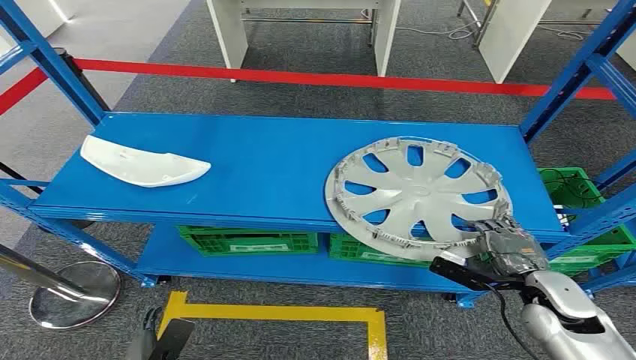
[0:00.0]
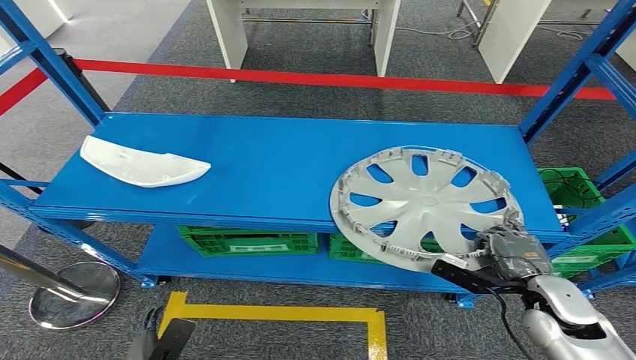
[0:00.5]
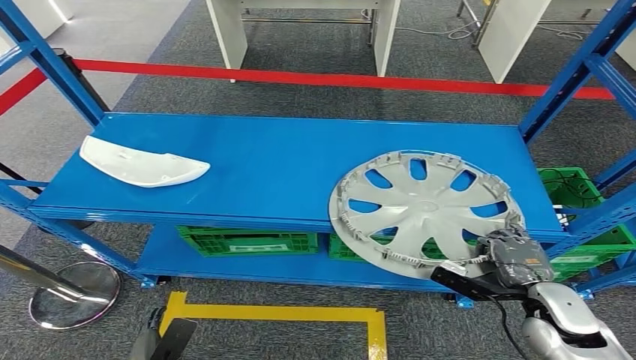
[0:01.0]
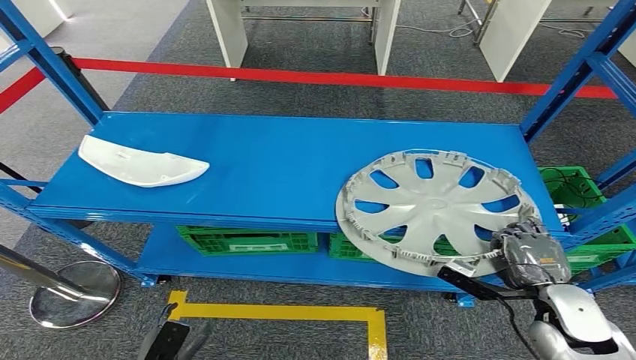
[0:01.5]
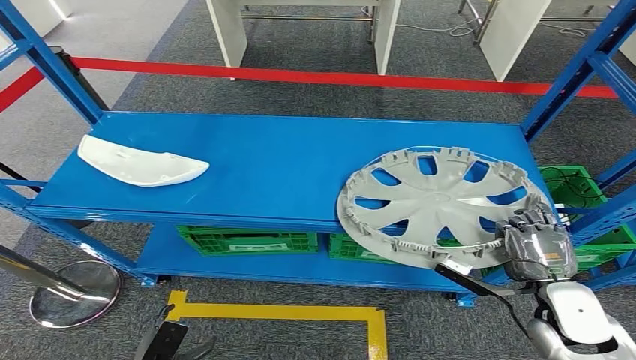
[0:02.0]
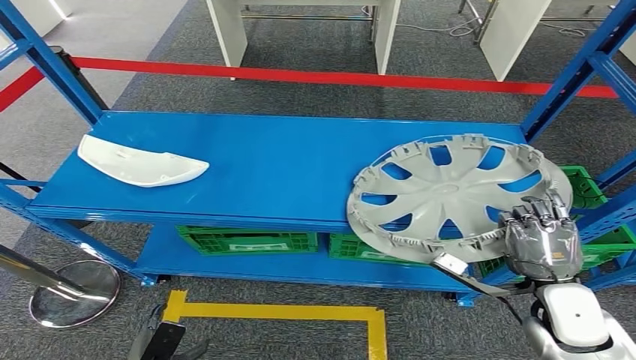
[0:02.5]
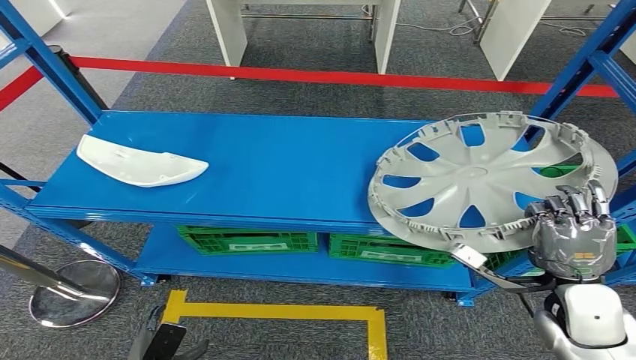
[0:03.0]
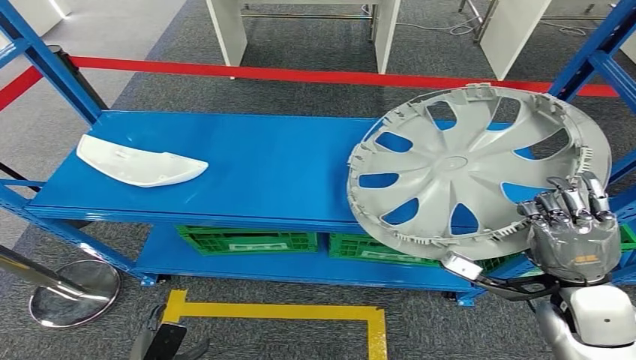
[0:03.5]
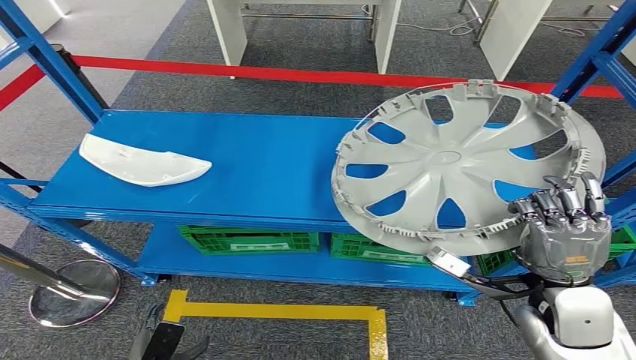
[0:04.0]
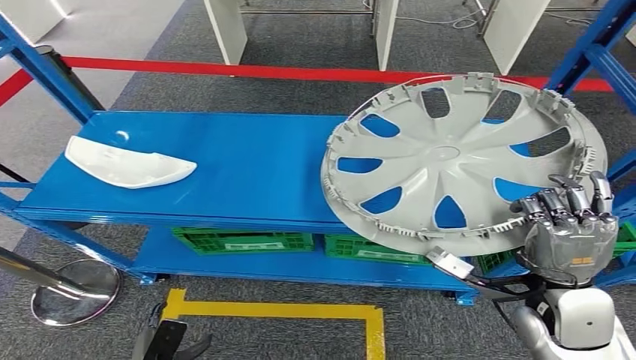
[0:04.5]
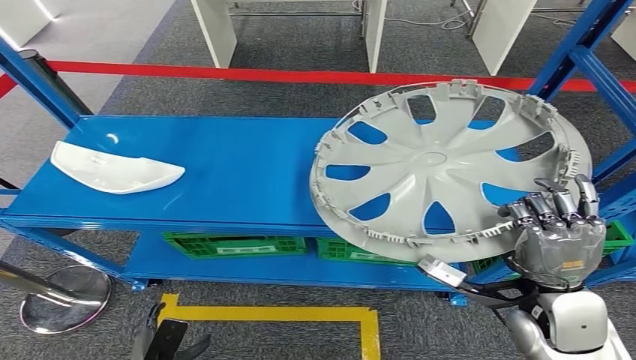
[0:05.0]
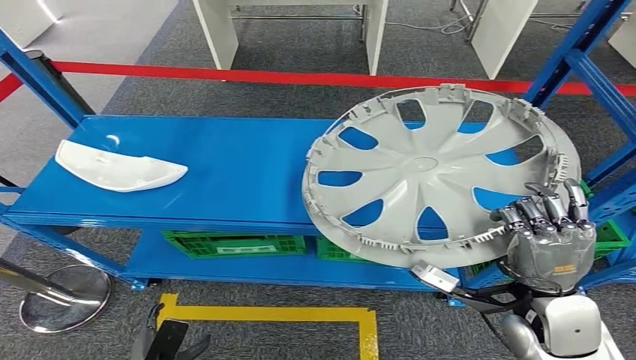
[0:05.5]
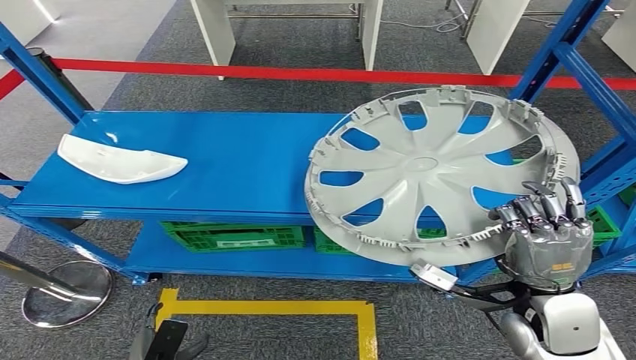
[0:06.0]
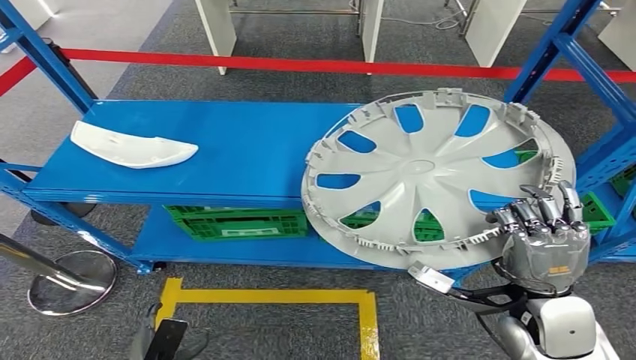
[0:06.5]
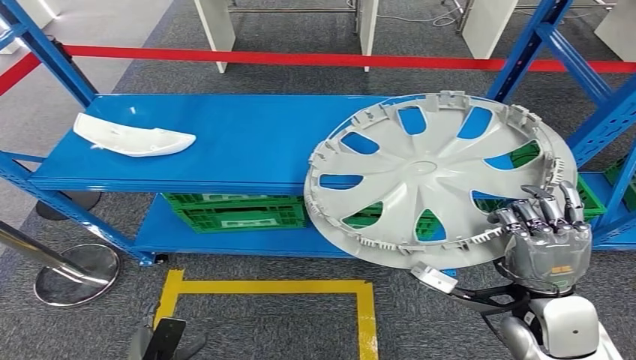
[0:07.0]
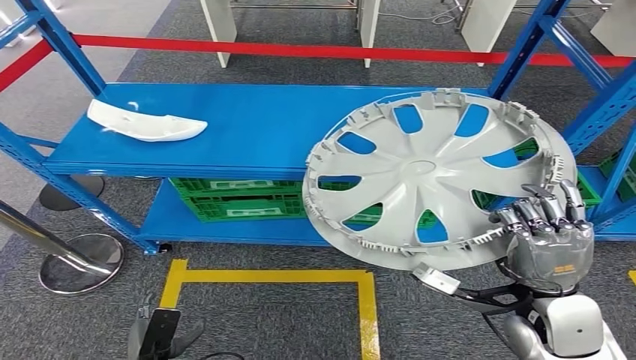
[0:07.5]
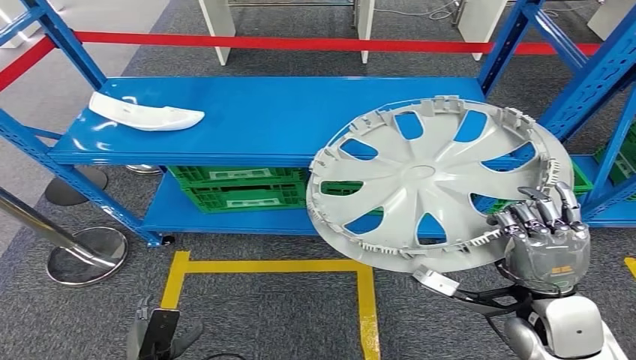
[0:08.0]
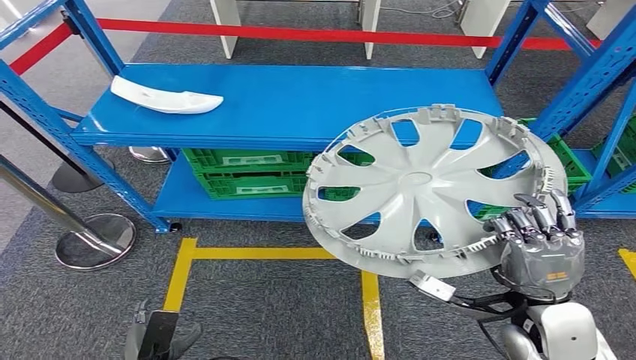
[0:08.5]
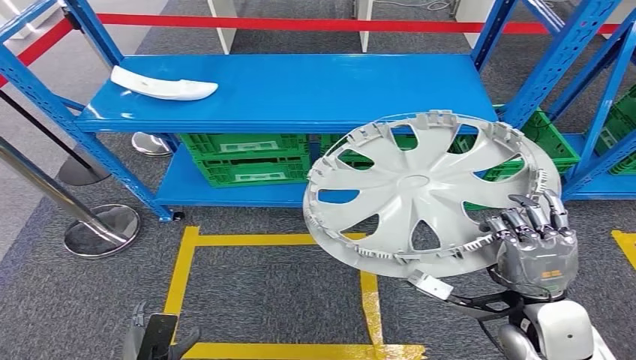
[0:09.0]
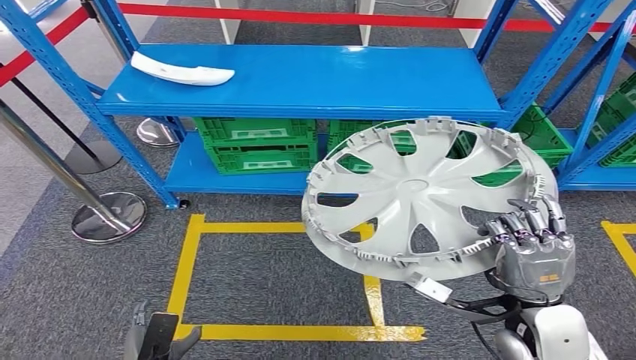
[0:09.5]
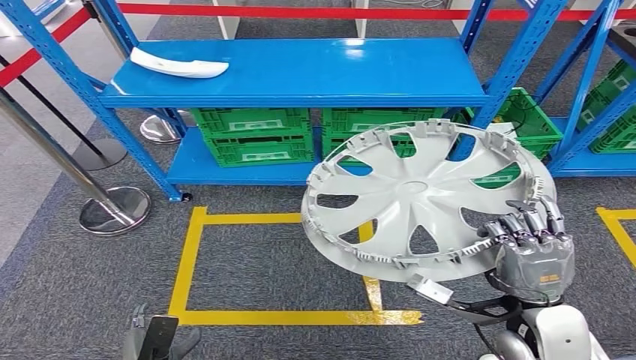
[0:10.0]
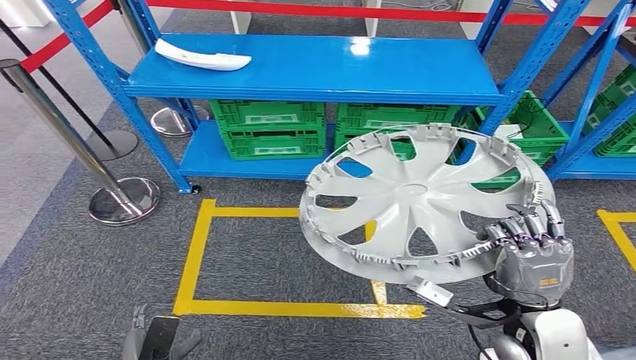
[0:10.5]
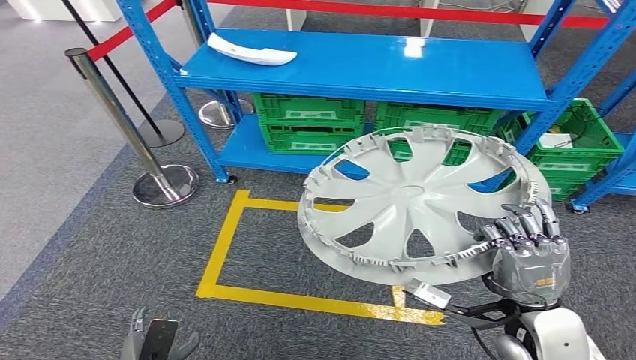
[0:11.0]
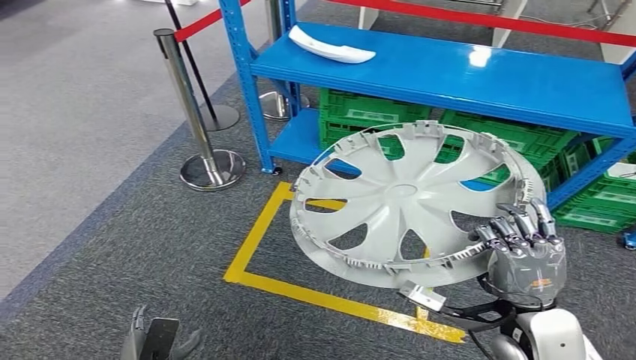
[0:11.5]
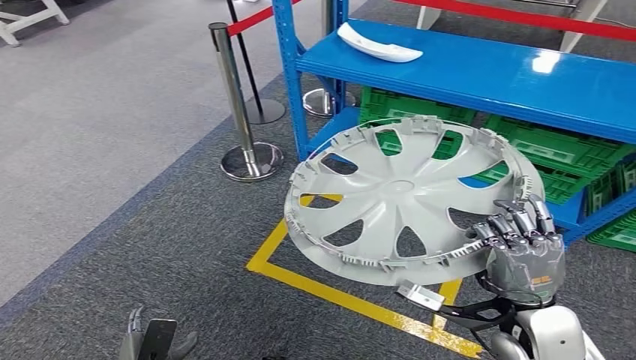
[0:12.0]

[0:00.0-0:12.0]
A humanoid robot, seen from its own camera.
Step, 0:00.0 to 0:04.0: Pick up the small component from the shelf.

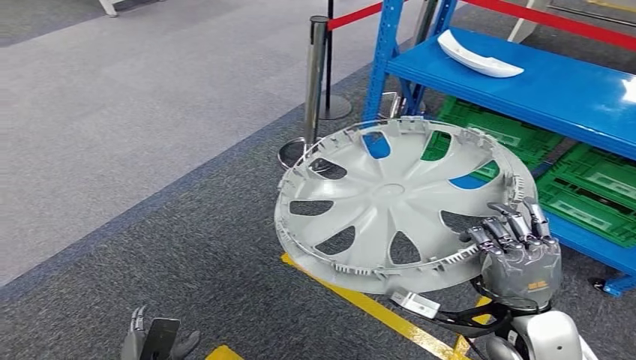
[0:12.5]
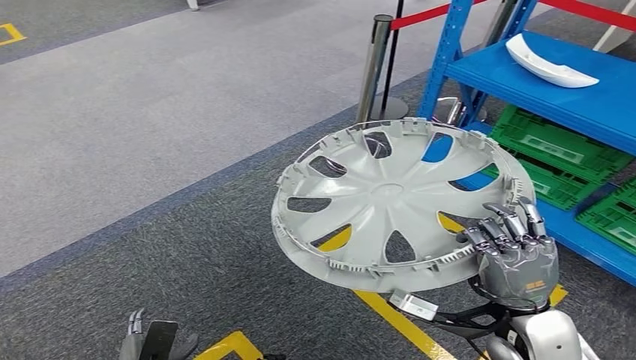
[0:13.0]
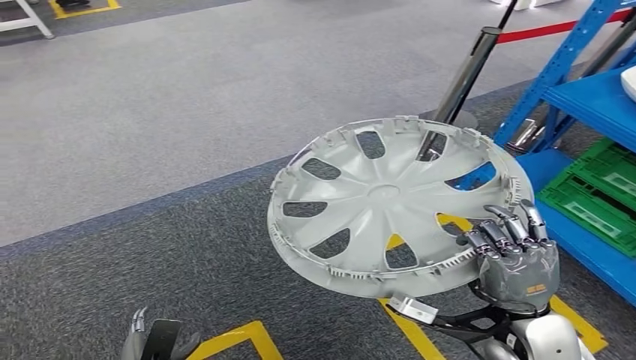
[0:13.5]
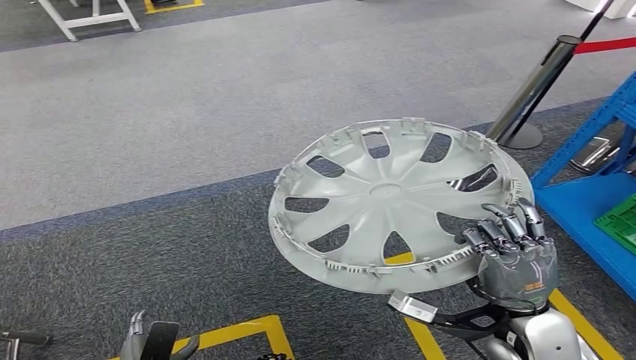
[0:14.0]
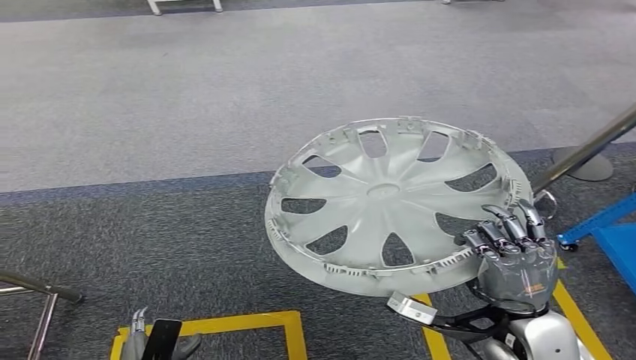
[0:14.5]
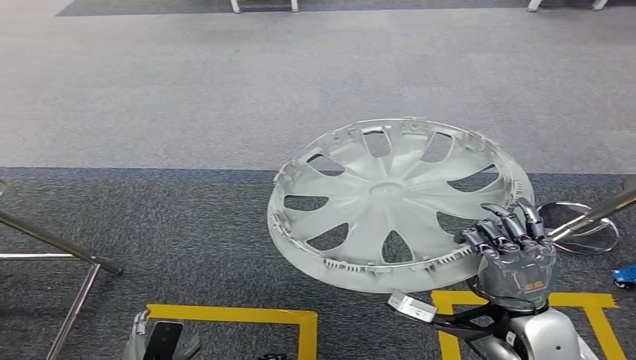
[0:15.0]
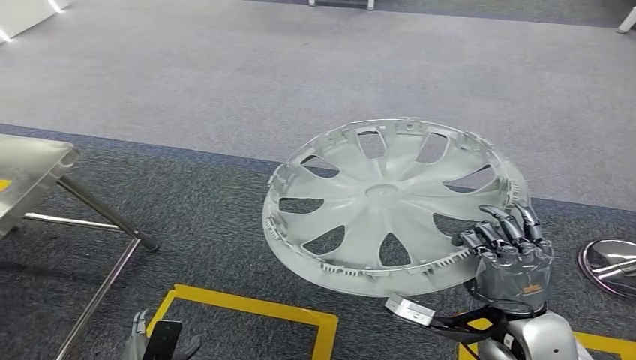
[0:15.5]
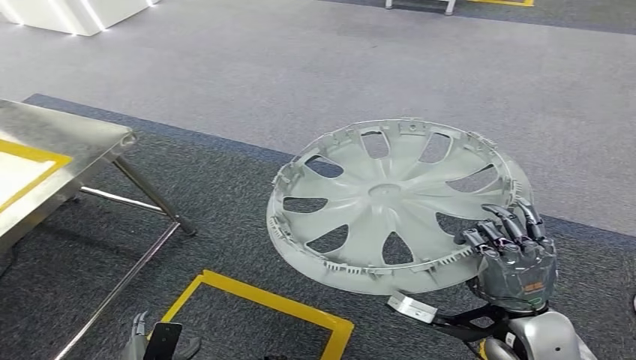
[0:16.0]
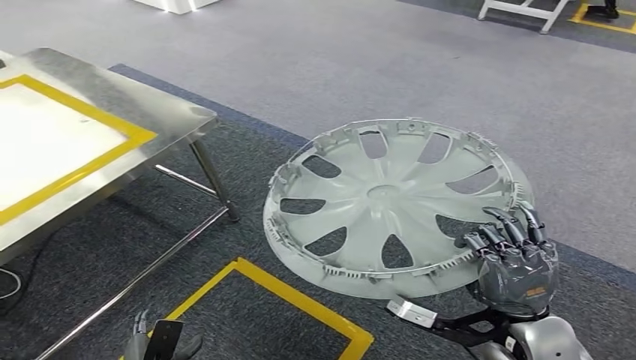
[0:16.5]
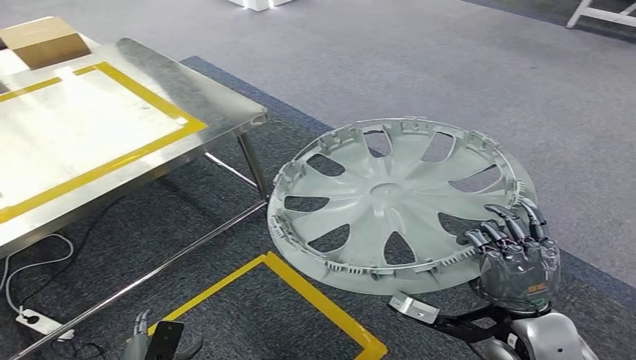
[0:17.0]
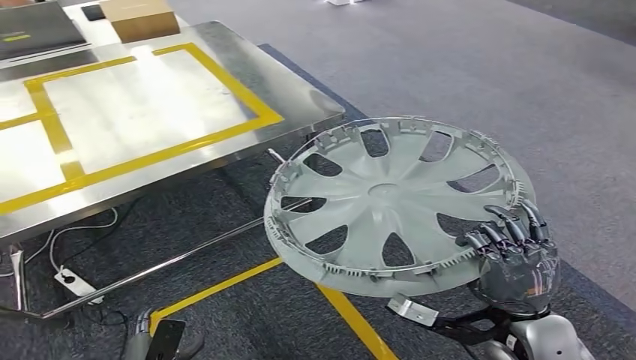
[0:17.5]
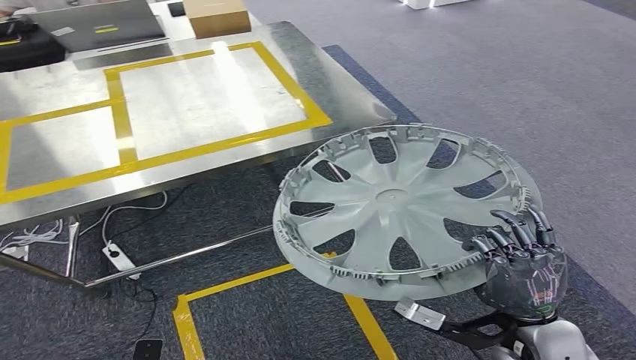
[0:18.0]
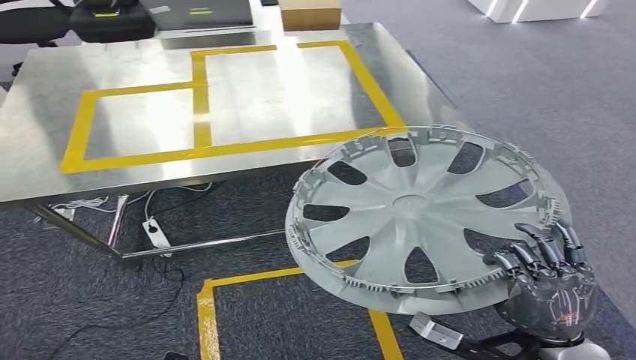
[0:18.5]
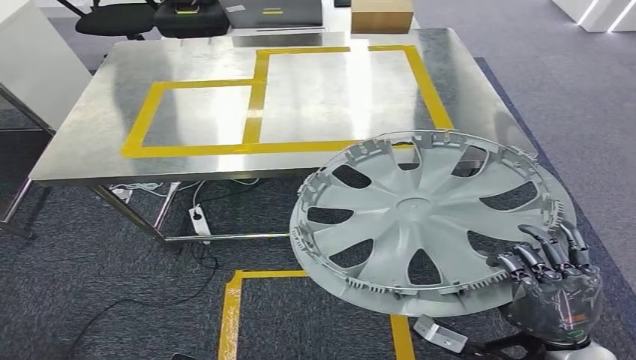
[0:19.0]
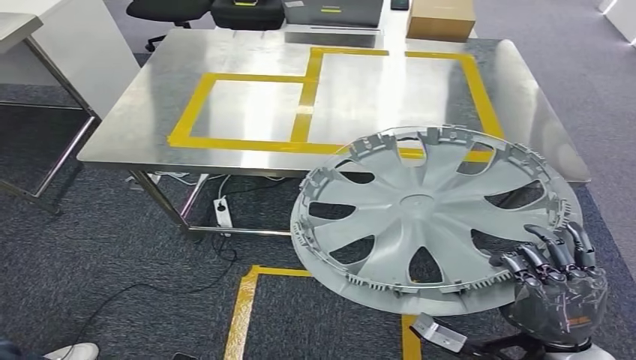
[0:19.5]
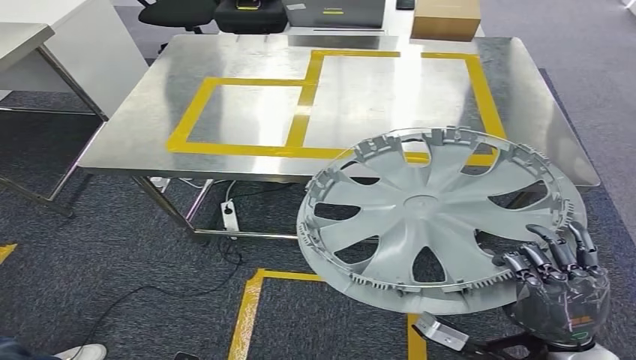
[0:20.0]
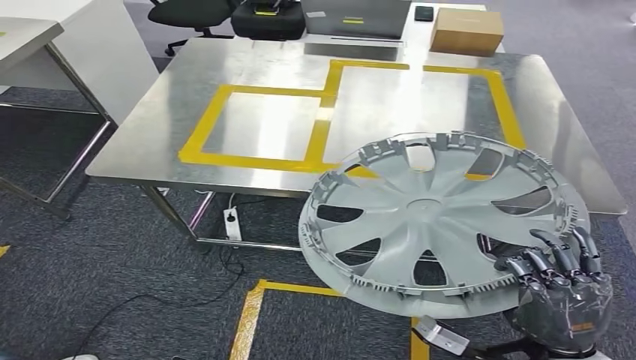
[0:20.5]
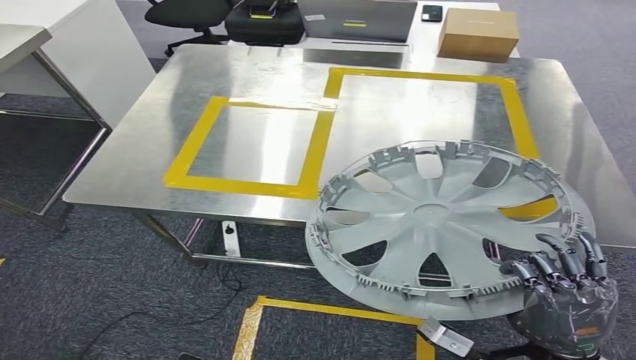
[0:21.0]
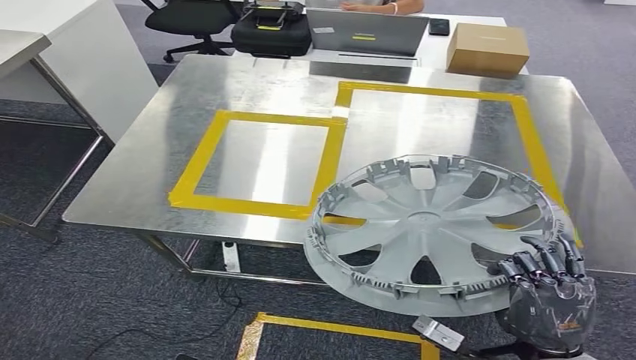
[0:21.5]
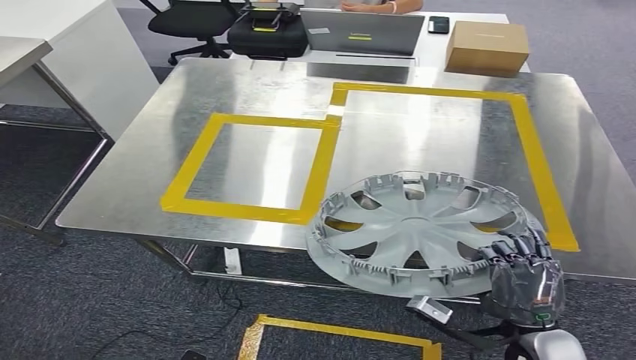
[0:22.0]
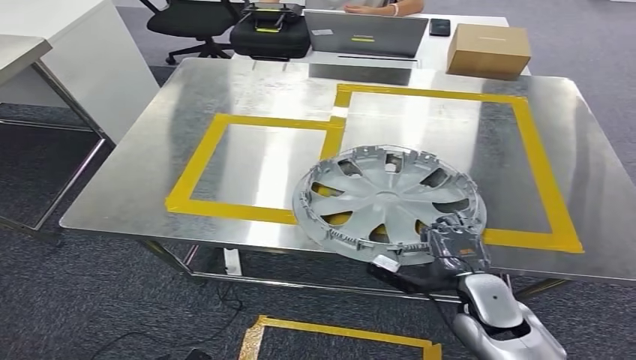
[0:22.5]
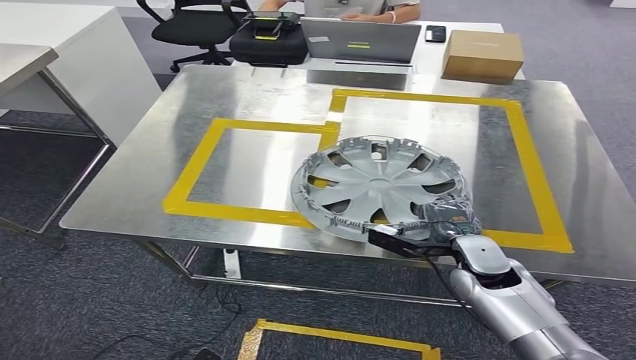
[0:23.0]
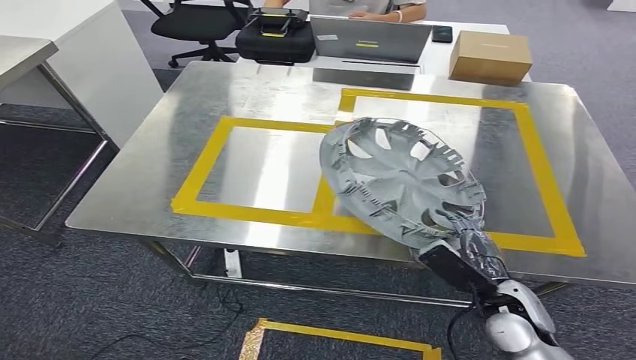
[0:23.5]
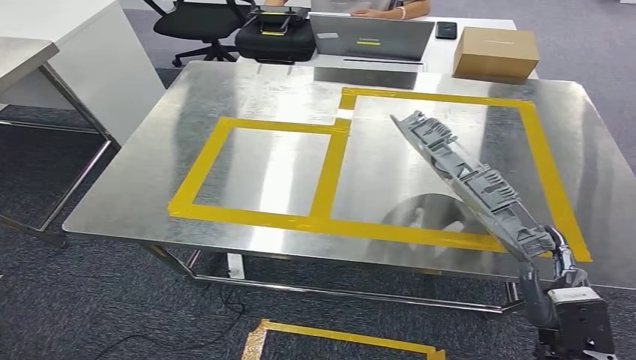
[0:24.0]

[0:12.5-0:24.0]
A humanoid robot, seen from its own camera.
Step, 0:12.5 to 0:22.0: Move the small component to the workbench.
